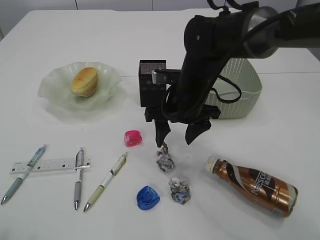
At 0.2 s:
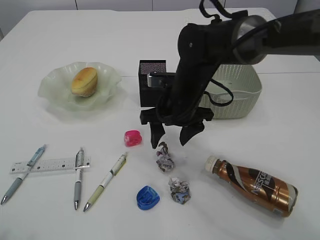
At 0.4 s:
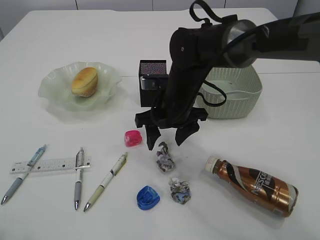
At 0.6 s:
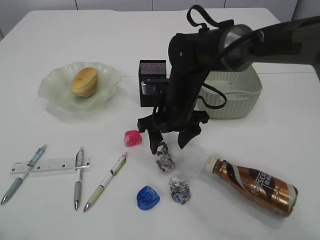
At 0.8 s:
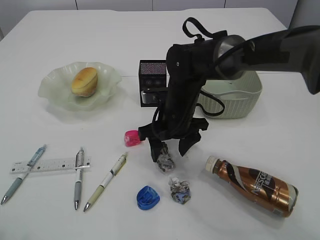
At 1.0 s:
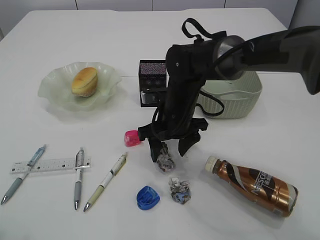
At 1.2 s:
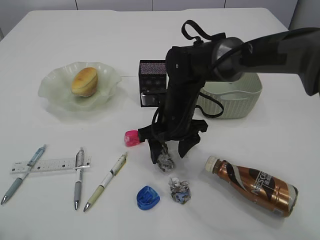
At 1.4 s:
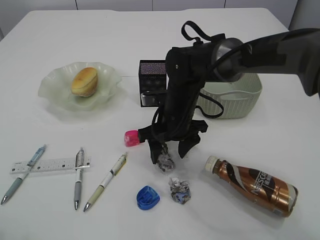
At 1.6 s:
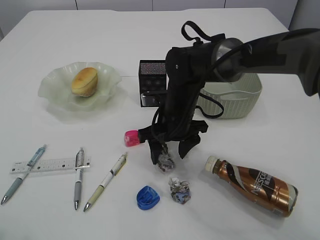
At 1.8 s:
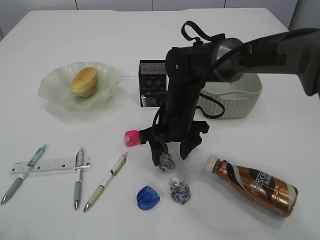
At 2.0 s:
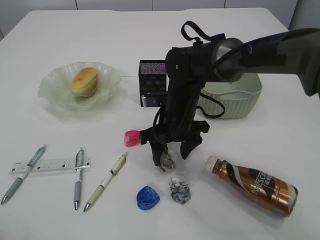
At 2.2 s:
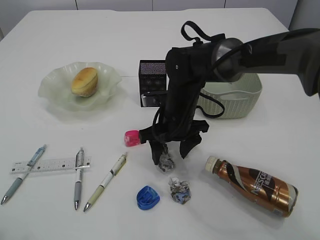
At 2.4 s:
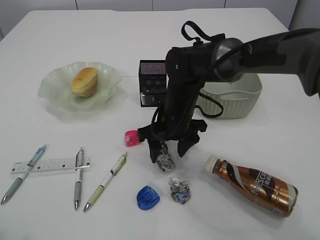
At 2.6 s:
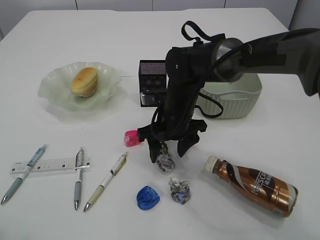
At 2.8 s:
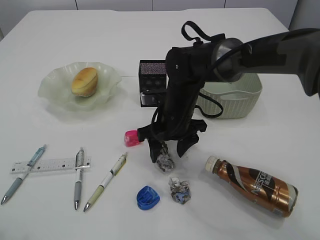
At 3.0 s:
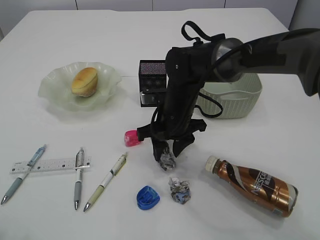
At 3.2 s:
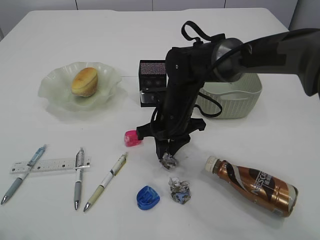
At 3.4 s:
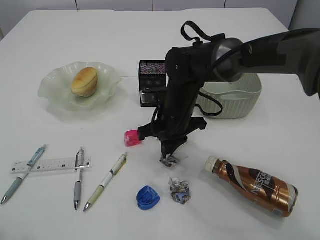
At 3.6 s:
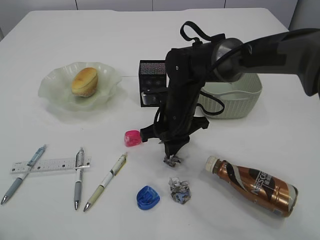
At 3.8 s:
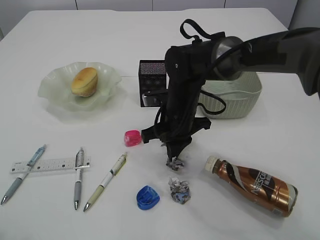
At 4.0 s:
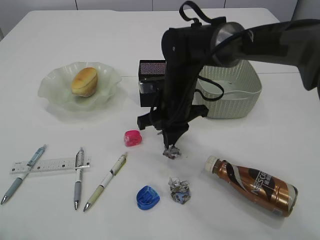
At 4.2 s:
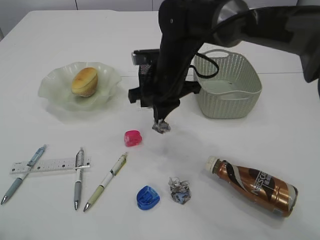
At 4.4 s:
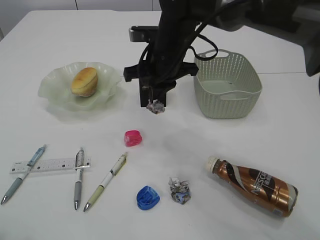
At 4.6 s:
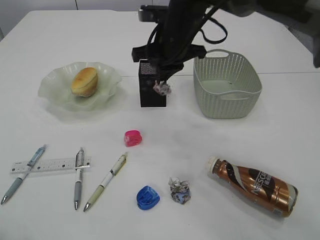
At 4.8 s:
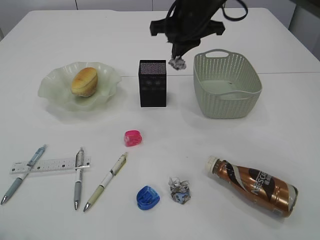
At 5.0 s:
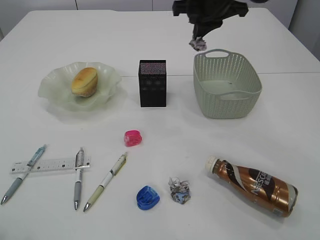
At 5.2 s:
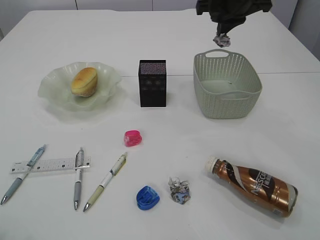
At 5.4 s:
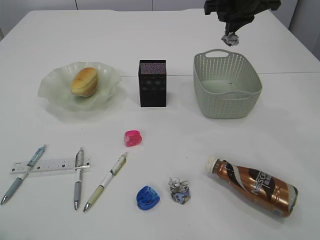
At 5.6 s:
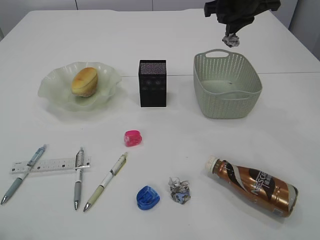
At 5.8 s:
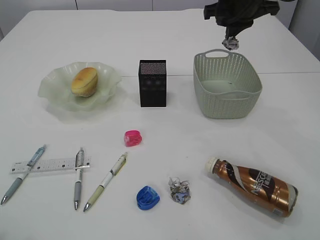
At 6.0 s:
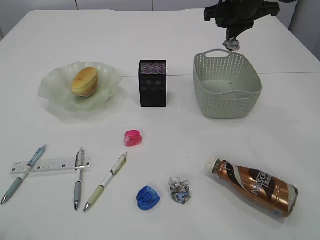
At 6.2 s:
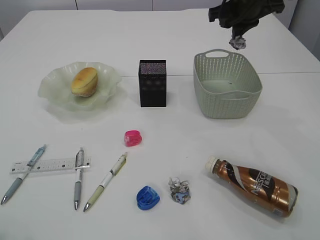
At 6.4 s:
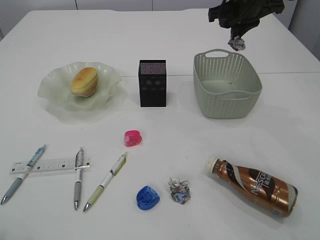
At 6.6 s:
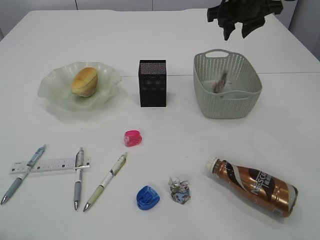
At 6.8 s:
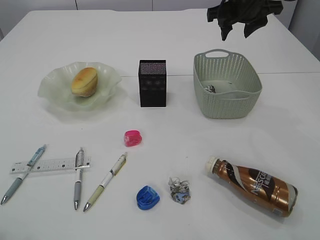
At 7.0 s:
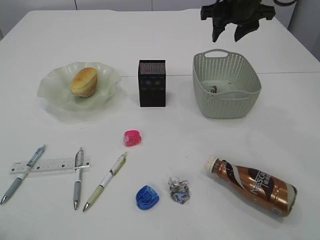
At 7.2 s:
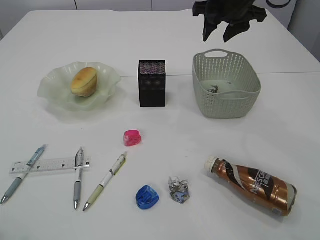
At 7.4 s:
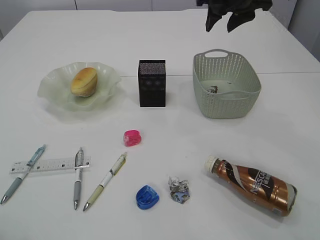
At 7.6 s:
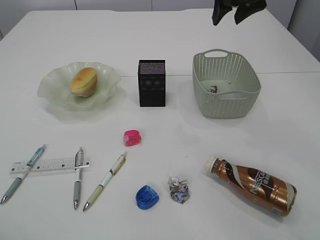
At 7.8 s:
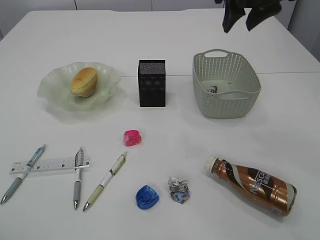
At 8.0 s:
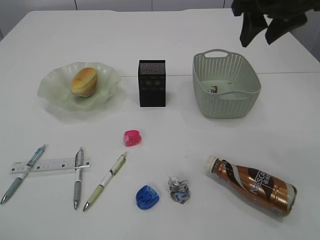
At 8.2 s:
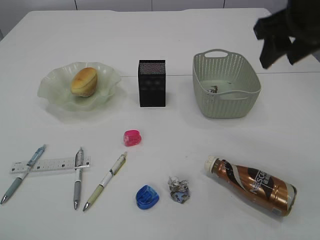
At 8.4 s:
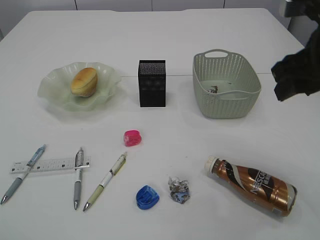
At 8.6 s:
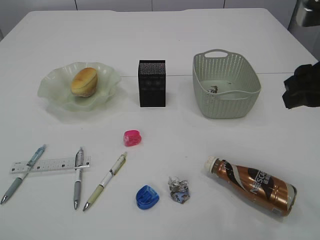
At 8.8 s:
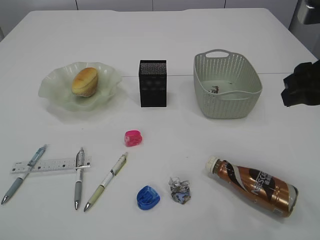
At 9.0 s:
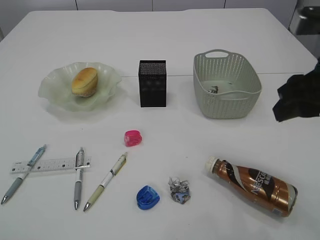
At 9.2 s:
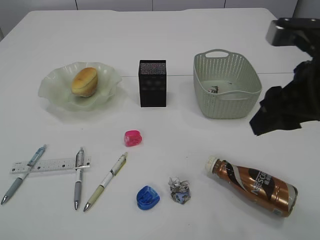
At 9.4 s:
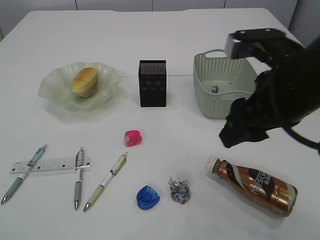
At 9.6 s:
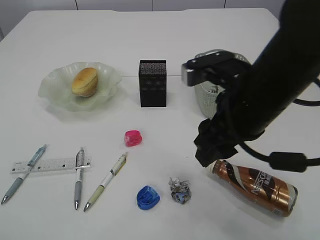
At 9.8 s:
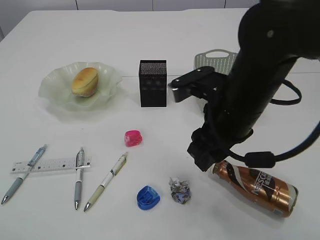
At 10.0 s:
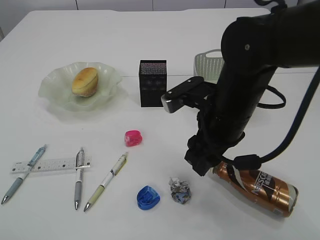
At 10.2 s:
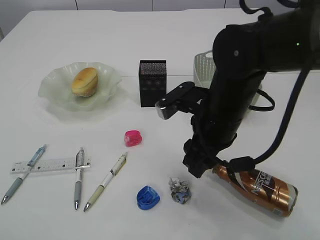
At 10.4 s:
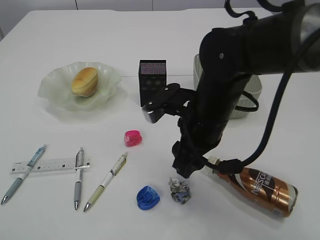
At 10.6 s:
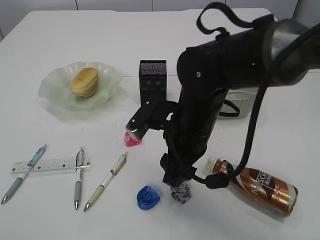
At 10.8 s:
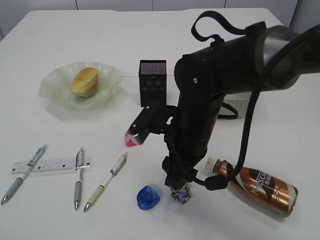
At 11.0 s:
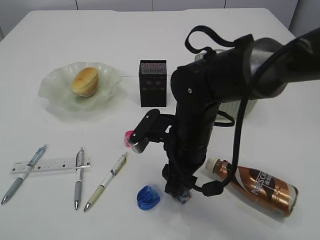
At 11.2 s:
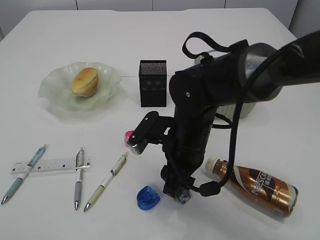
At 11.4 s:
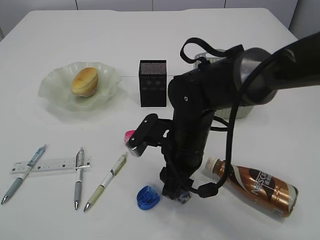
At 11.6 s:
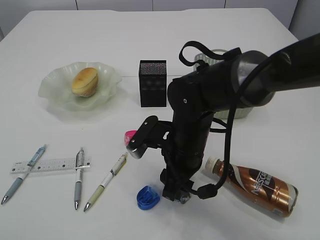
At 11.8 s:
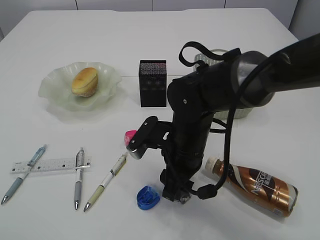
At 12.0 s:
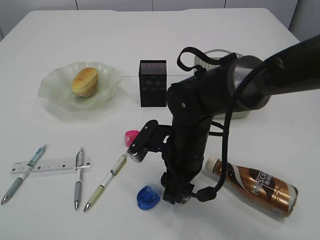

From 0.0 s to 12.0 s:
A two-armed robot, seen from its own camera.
Step, from 0.0 s to 4.2 s: Pick up the waste paper.
Step, from 4.4 s to 7.2 s: Place the waste paper in the basket.
From 0.0 s to 1.6 s: The right gripper moves downward, roughly 5 cm.
From 1.6 s to 3.0 s: Both grippers stay about where they are.
From 3.0 s to 4.4 s: The right gripper heads upward, covering some 10 cm, and closes up.
From 4.4 s to 6.0 s: The right gripper goes approximately 20 cm to the right, upward and forward.
From 6.0 s to 7.6 s: The right gripper changes place by approximately 5 cm, and opens its fingers.
From 7.6 s to 9.0 s: The right gripper heads backward, covering about 20 cm.
From 9.0 s to 10.4 s: The right gripper travels to the left, downward and forward by roughly 20 cm.
From 10.4 s to 12.0 s: The right gripper shifts about 5 cm downward.

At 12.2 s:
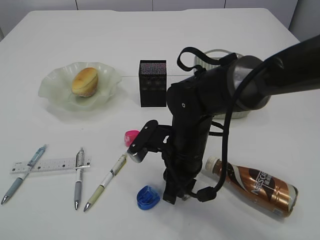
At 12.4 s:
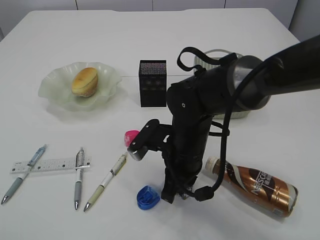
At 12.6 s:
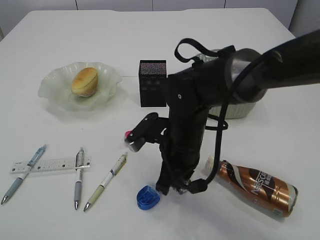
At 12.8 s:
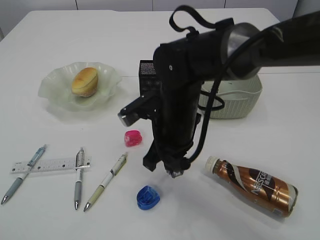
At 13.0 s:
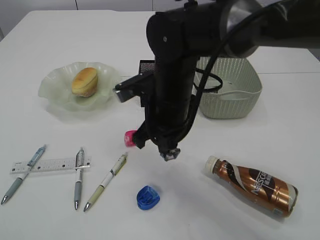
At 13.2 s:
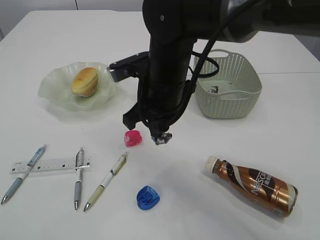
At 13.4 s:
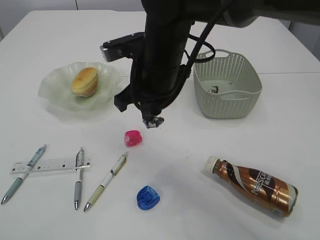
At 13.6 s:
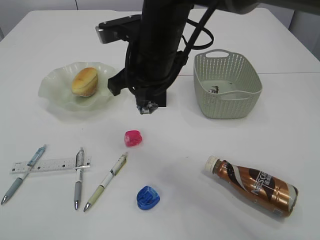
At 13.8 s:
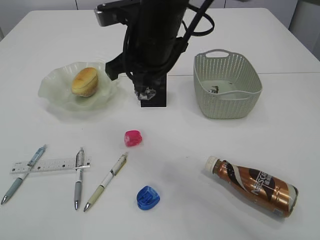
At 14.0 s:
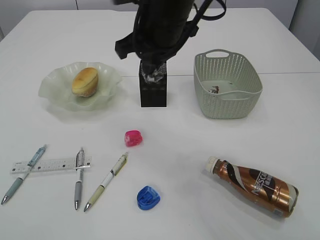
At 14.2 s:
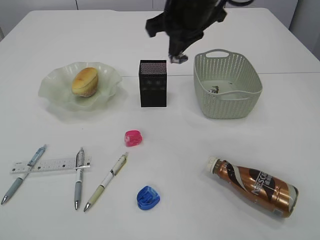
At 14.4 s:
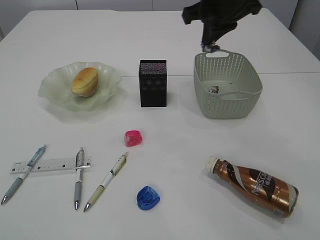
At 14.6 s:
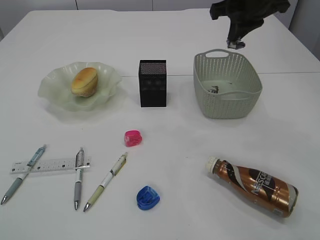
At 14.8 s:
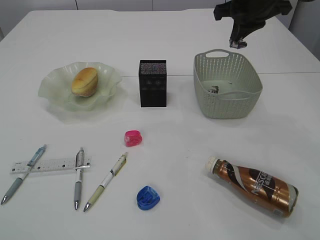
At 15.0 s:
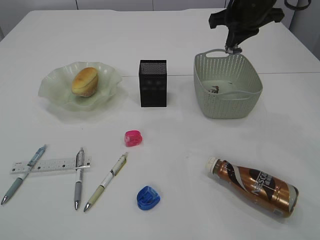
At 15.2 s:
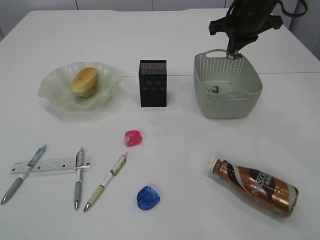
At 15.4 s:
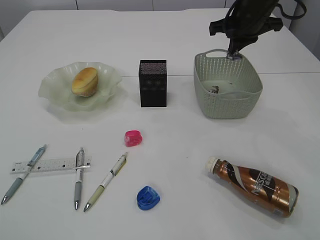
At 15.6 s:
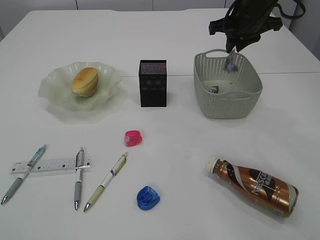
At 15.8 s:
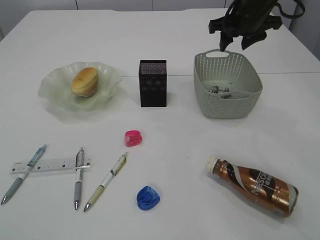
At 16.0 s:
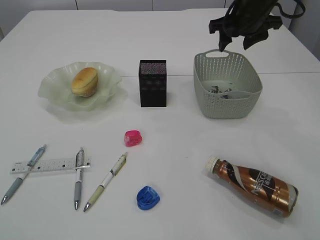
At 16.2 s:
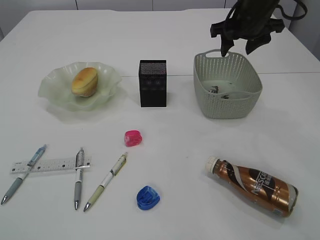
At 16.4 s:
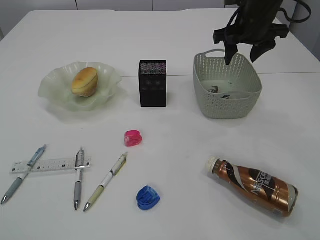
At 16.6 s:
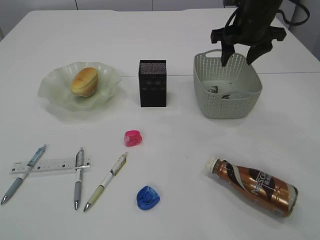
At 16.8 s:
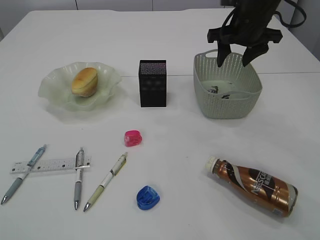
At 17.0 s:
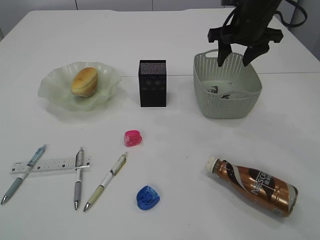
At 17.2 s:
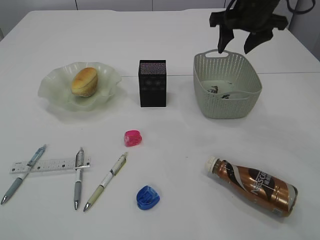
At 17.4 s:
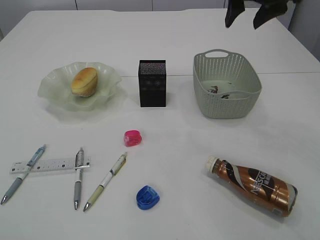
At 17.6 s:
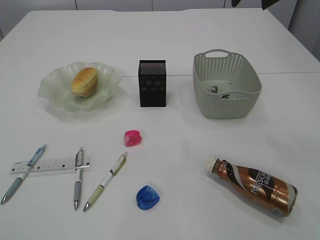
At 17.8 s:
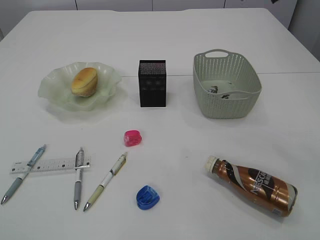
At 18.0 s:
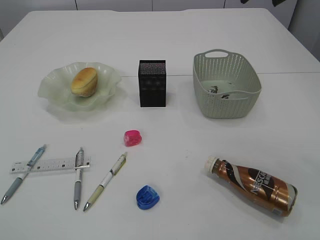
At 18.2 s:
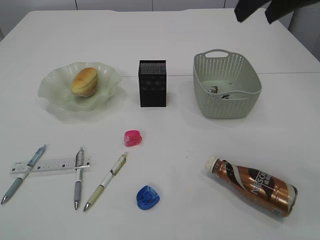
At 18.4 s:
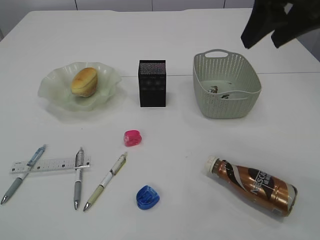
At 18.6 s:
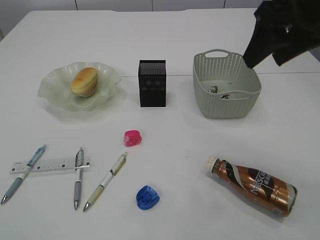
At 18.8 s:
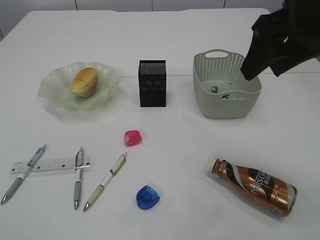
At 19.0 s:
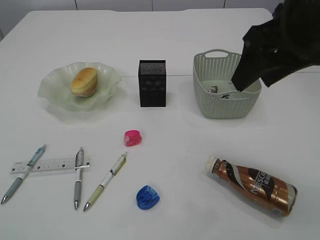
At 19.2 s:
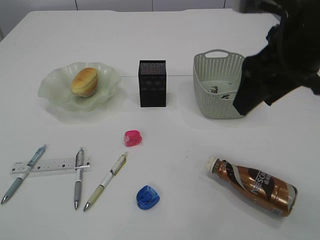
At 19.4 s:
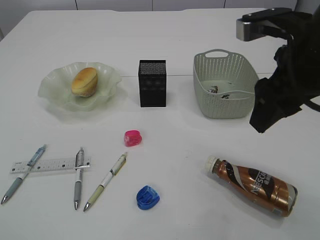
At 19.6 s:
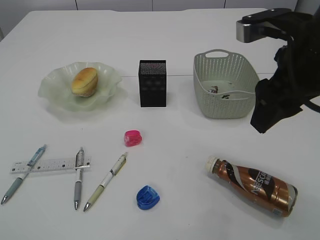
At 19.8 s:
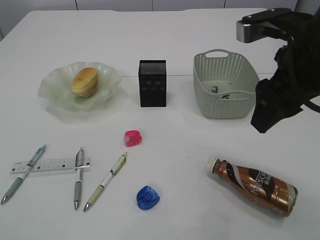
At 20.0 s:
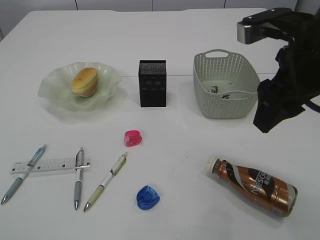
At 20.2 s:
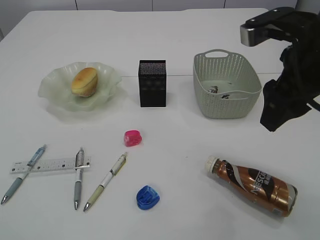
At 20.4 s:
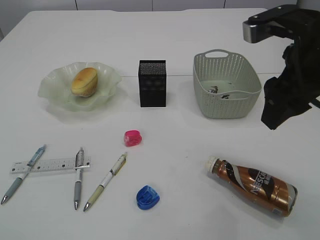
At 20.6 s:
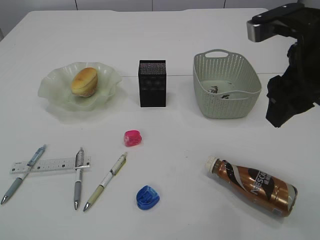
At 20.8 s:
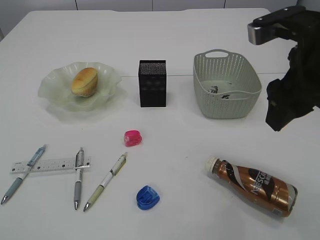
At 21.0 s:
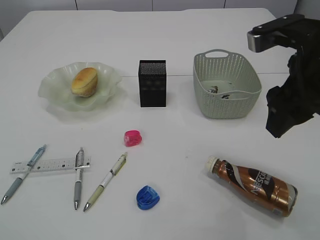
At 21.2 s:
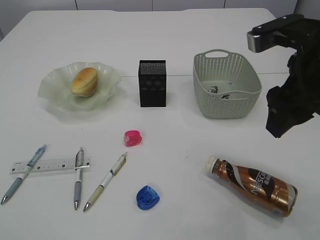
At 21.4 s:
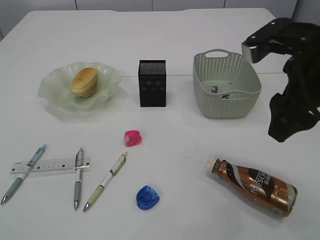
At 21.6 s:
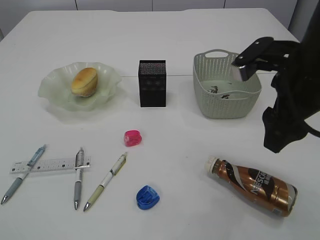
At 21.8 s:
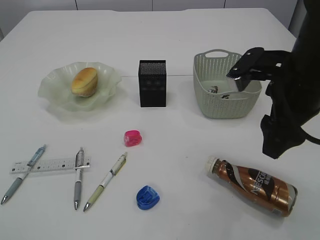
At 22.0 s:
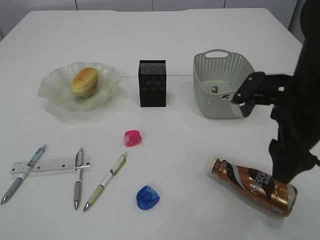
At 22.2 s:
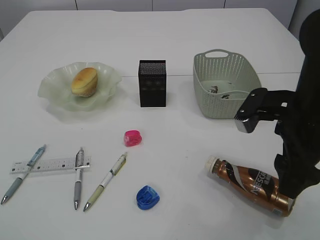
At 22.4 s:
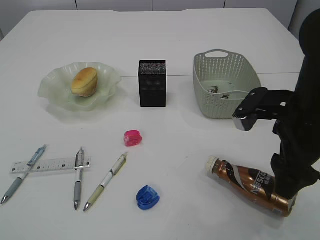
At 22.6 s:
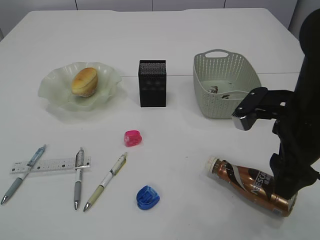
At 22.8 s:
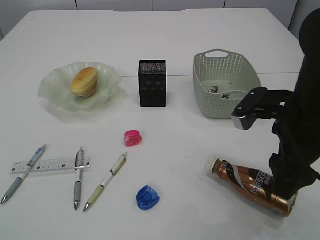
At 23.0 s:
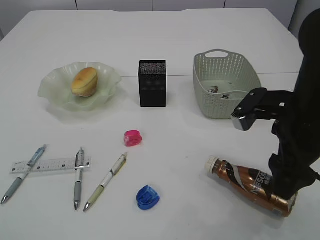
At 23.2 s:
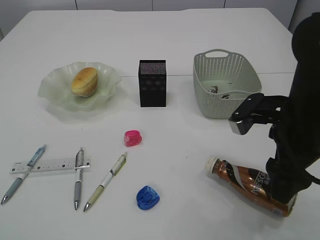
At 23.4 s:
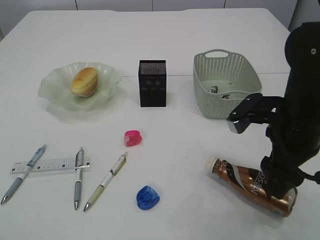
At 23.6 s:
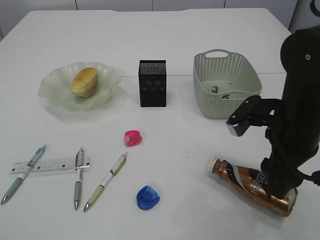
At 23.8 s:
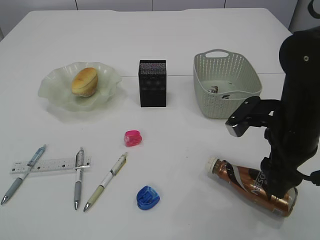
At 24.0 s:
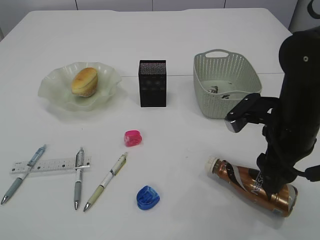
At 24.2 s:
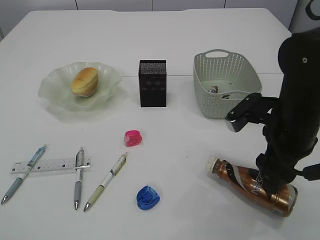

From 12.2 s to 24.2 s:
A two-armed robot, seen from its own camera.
Step, from 13.0 s to 16.2 s: Place the waste paper in the basket.
From 12.2 s to 13.8 s: The right gripper moves upward, about 15 cm, and closes its fingers.
From 13.8 s to 15.2 s: The right gripper moves to the right and forward, approximately 20 cm.
From 15.2 s to 16.6 s: The right gripper opens its fingers.
From 16.6 s to 18.2 s: The right gripper travels backward and upward by some 20 cm.
From 18.2 s to 19.8 s: The right gripper travels downward and backward by about 10 cm.
From 19.8 s to 21.2 s: The grippers move only a little.
From 21.2 s to 22.6 s: The right gripper goes about 10 cm downward.
From 22.6 s to 24.2 s: The grippers move only a little.
